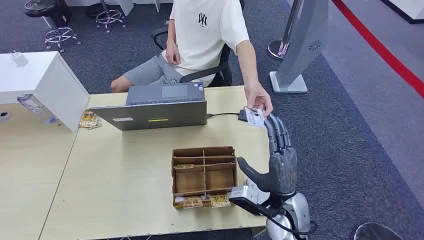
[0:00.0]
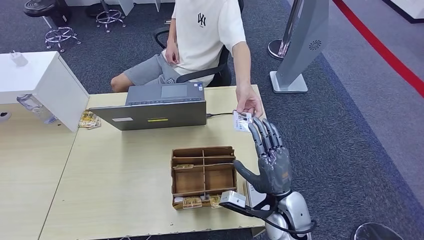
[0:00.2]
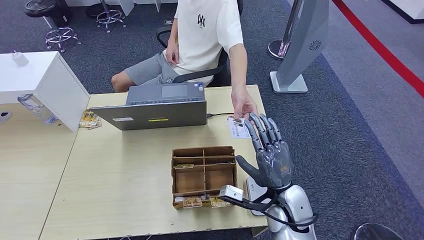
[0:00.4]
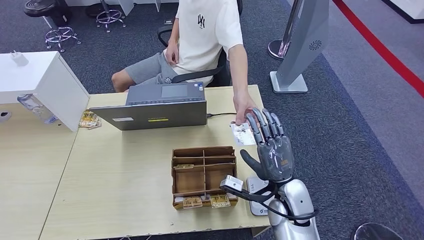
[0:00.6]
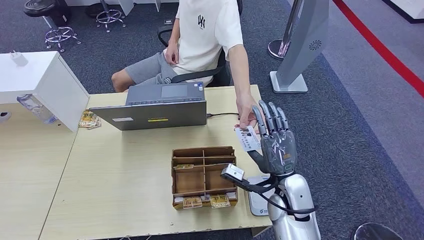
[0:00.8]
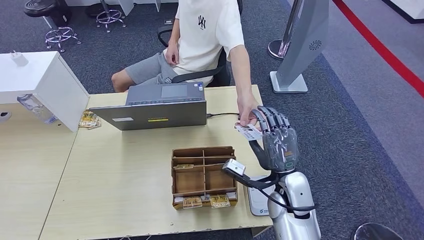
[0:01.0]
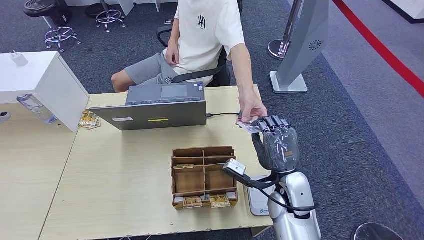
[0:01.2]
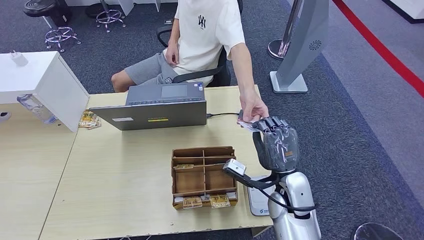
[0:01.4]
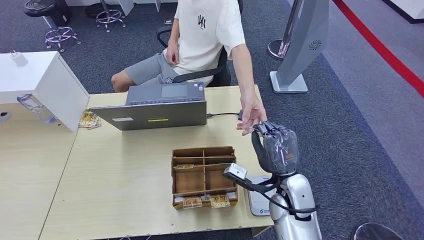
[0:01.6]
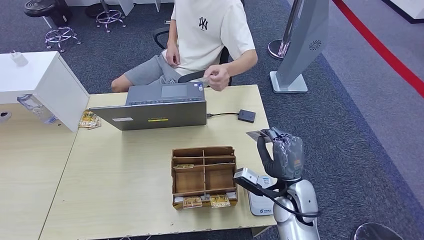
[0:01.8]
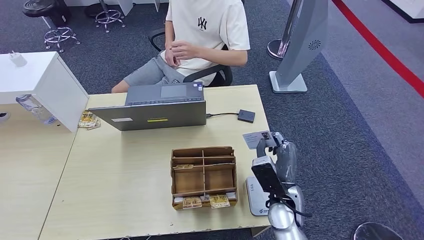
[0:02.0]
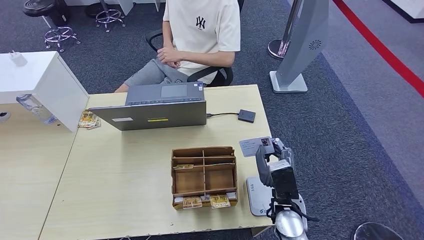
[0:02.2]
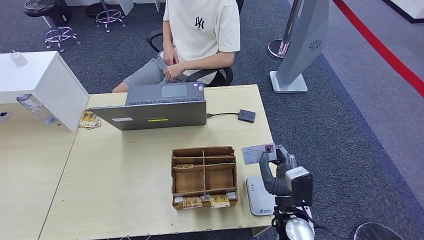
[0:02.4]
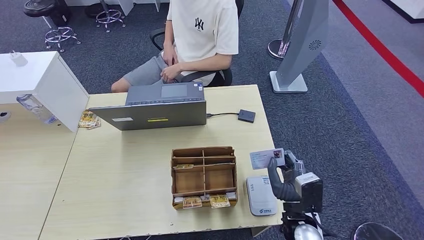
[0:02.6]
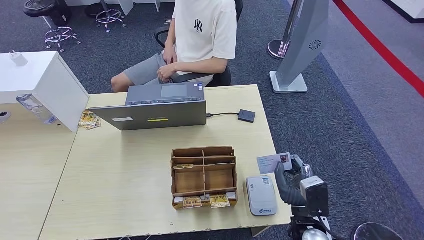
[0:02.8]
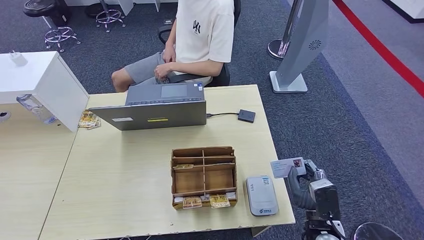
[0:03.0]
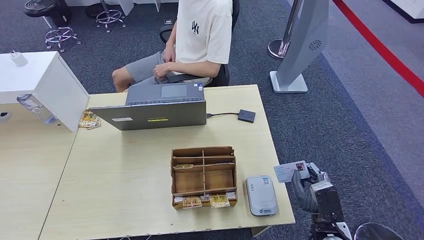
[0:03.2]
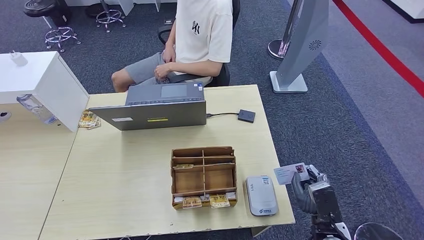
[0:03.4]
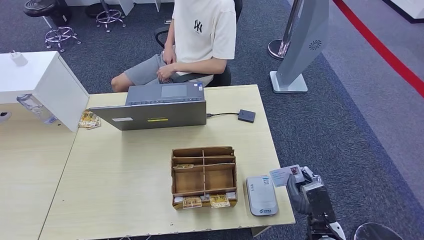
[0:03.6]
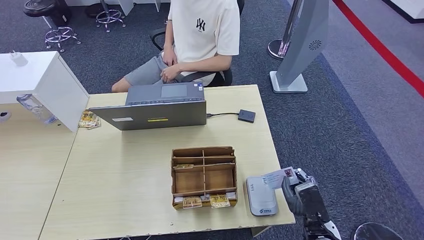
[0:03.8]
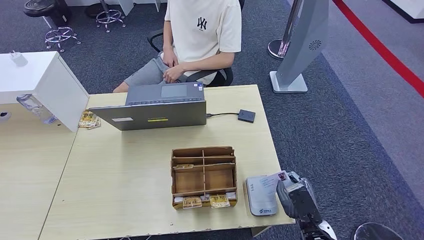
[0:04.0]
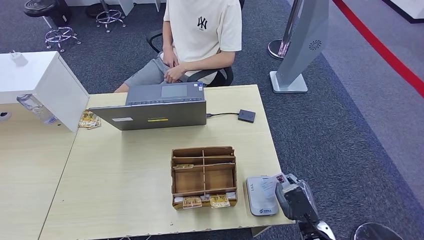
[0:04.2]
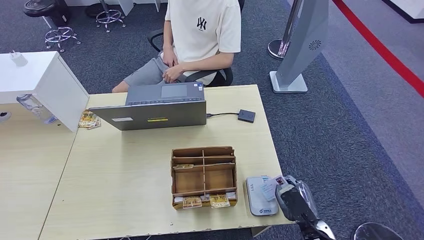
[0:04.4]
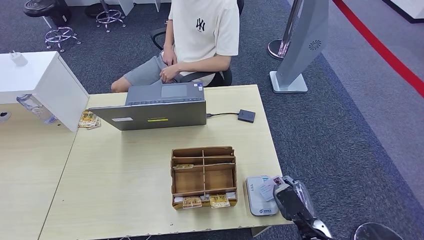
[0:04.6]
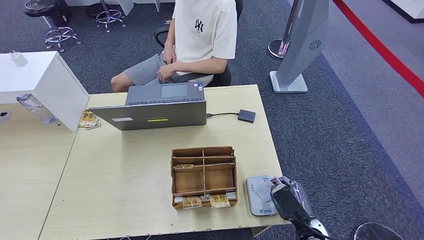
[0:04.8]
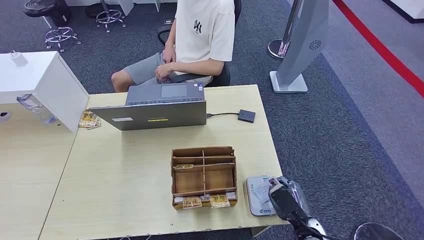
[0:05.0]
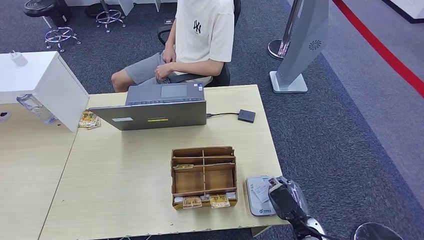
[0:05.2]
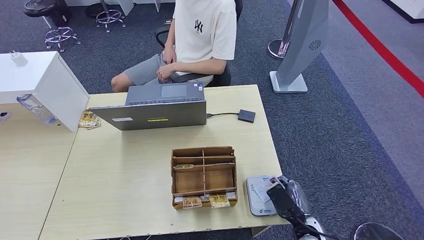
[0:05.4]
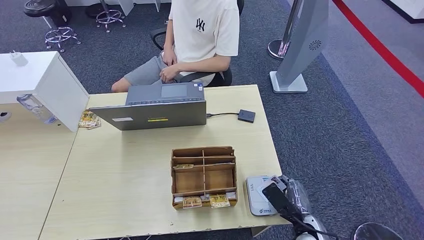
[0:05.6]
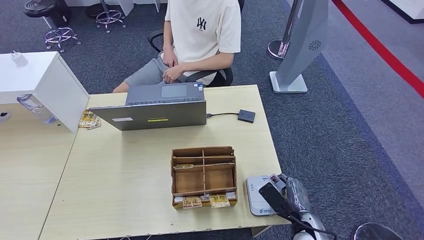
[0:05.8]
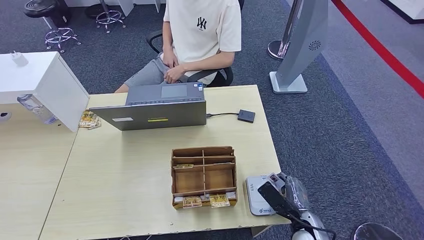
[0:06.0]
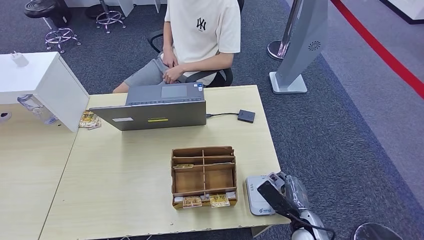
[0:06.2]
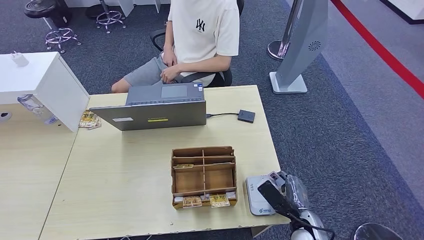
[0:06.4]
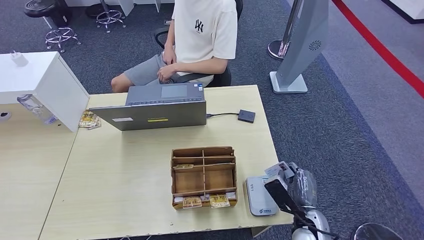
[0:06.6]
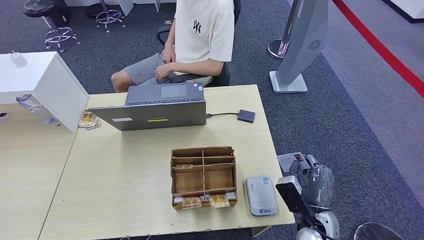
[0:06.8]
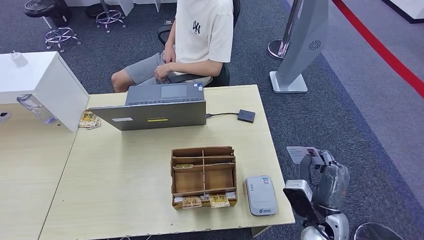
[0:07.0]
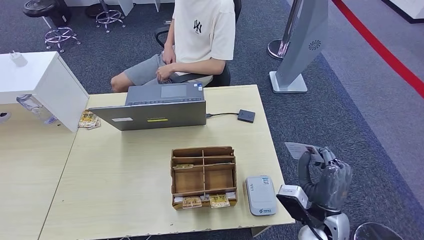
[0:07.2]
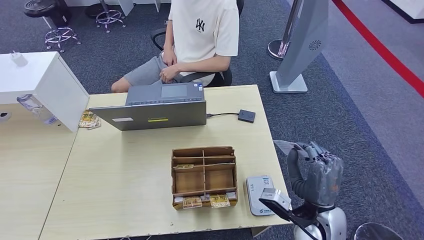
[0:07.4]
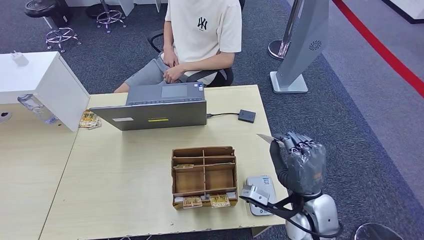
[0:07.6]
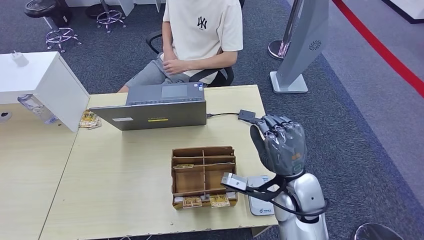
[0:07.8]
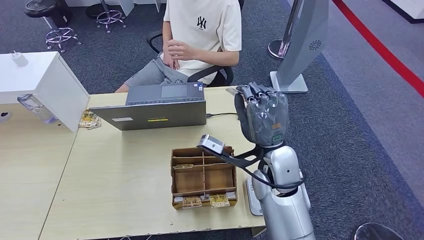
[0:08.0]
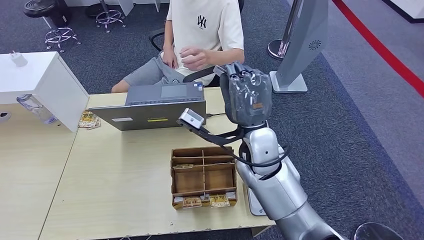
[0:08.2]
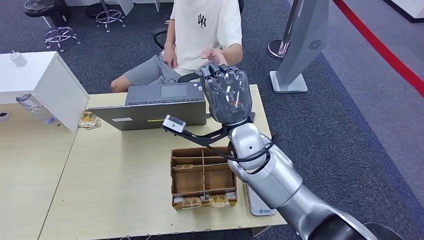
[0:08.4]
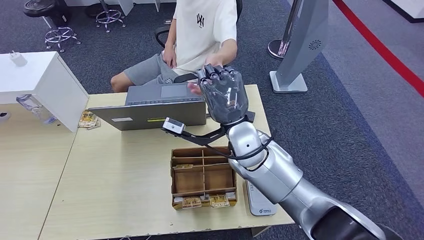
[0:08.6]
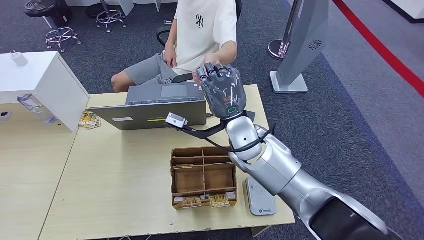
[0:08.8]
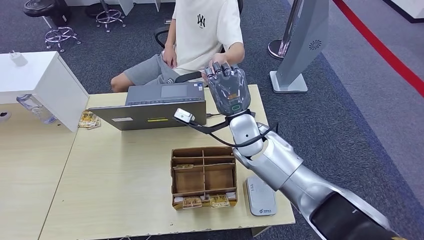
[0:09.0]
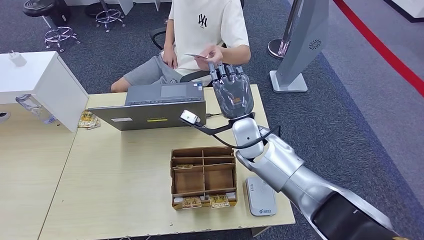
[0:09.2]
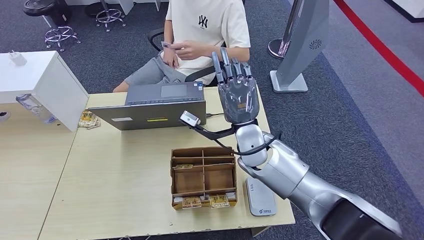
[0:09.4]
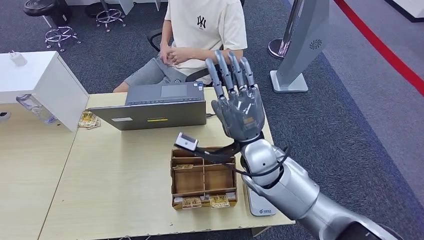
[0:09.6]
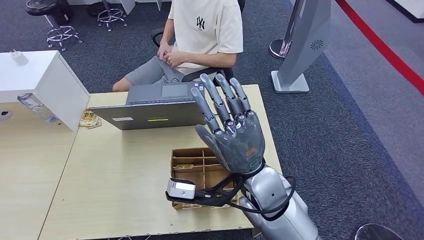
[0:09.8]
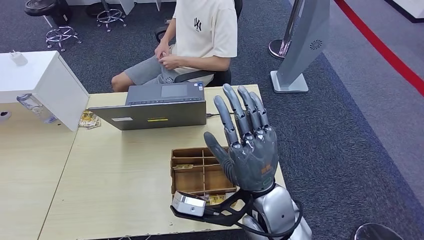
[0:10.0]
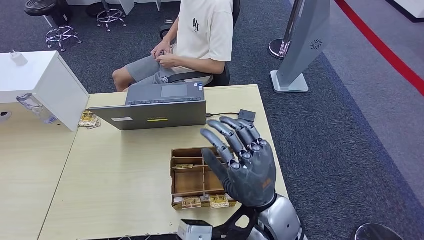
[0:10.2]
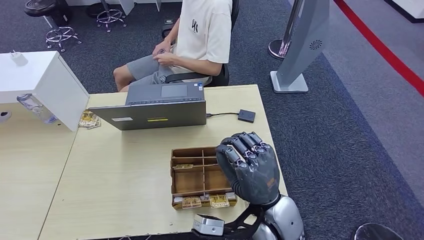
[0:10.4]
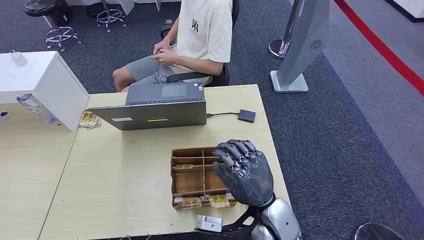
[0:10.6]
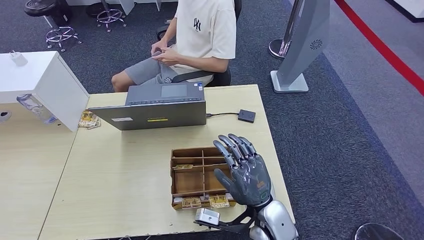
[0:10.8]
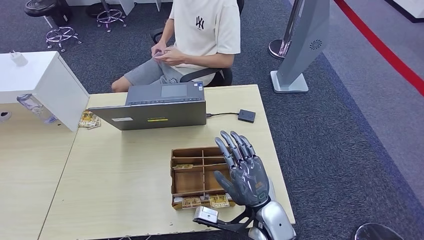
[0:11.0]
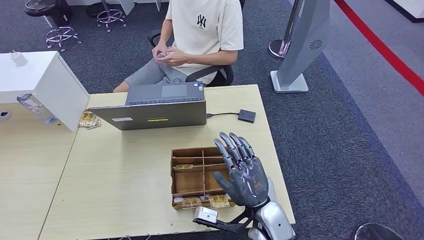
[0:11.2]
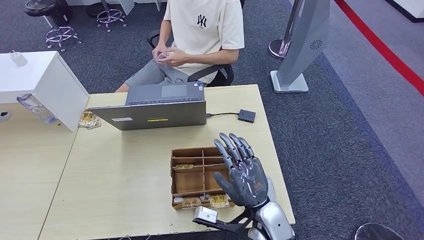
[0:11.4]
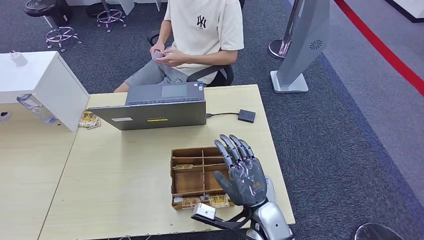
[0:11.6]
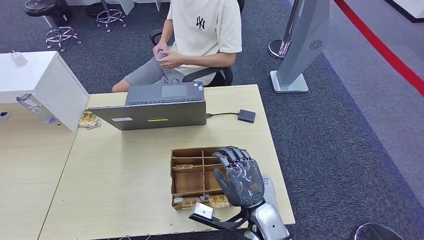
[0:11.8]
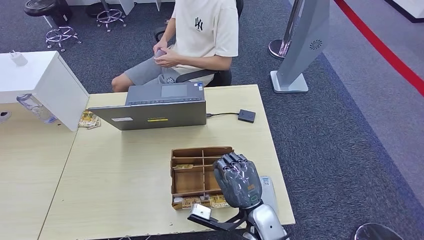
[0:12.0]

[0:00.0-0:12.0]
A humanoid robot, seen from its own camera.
Step, 0:00.0 to 0:02.4: Take the ID card from the person's hand.
Step, 0:02.6 to 0:07.4: Place the ID card on the card reader.
Step, 0:07.8 to 0:09.6: Hand the ID card to the person.
0:01.6 to 0:03.0: The right hand travels backward, to the right and downward by some 15 cm.
0:06.0 to 0:07.6: The right hand moves upward, some 15 cm.
0:07.6 to 0:09.0: The right hand heads forward, to the left and upward, covering some 20 cm.
0:09.0 to 0:10.4: The right hand shifts some 15 cm backward.
0:10.4 to 0:12.0: The right hand travels downward by approximately 10 cm.

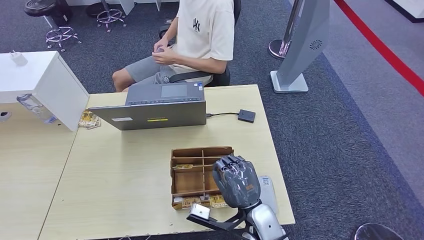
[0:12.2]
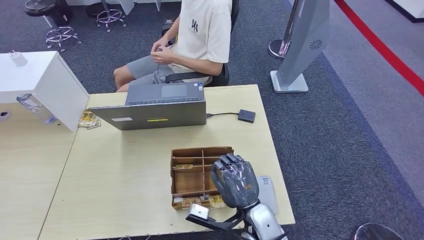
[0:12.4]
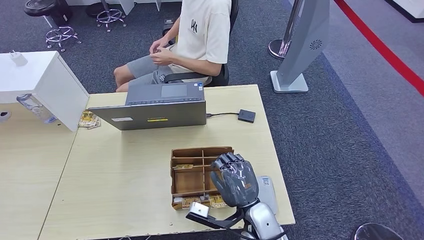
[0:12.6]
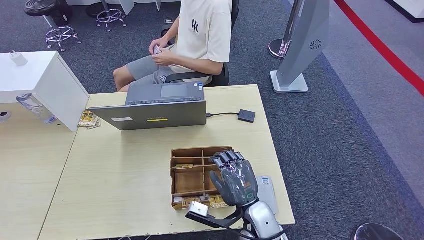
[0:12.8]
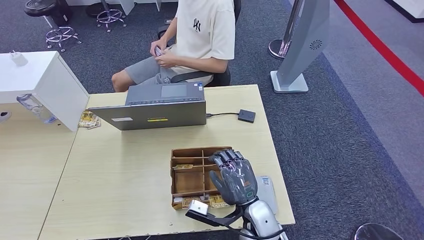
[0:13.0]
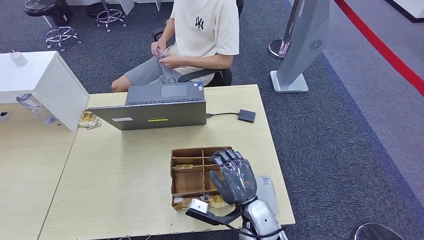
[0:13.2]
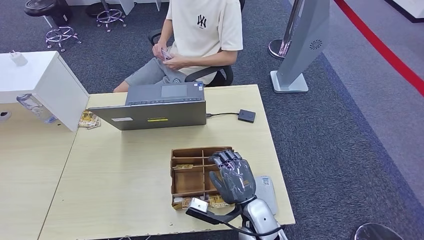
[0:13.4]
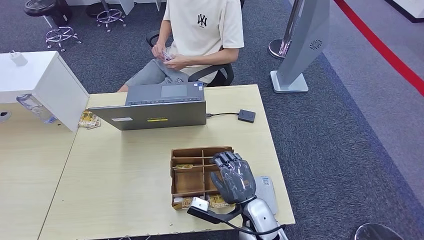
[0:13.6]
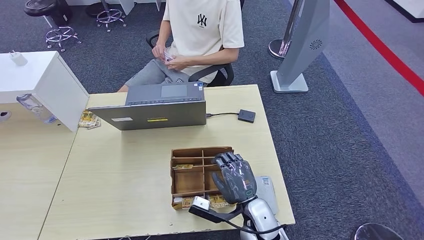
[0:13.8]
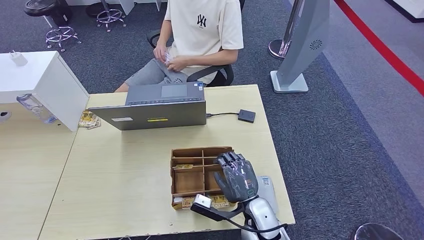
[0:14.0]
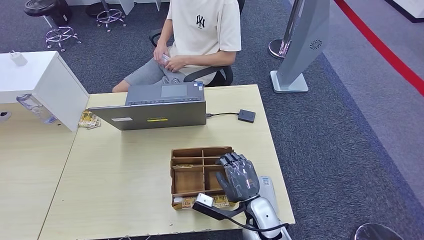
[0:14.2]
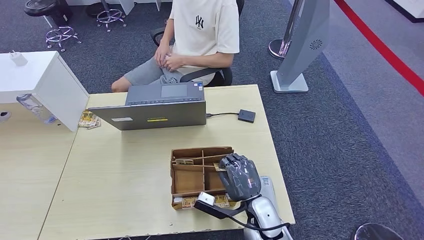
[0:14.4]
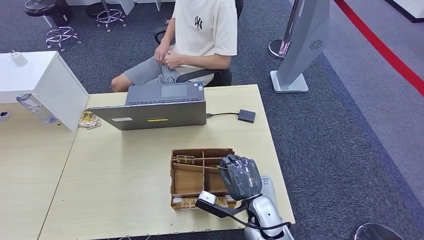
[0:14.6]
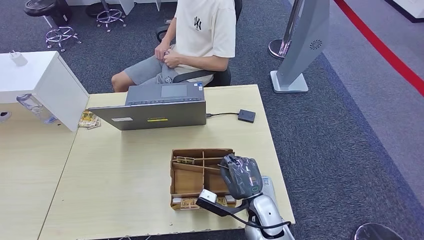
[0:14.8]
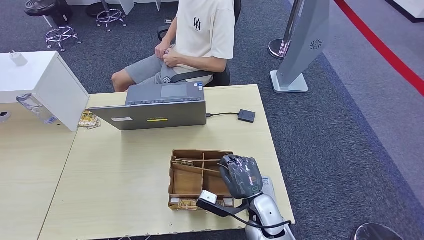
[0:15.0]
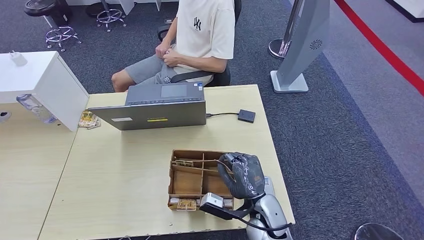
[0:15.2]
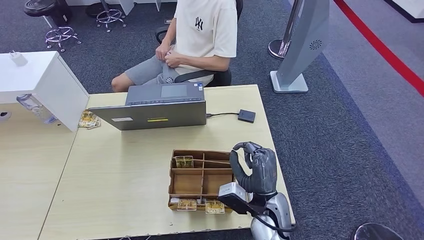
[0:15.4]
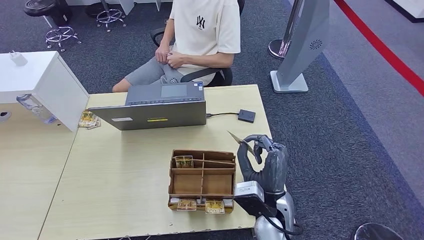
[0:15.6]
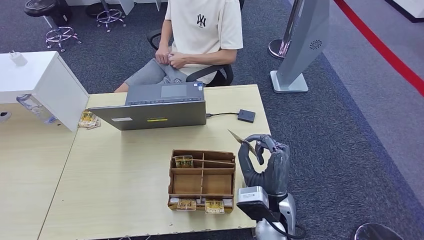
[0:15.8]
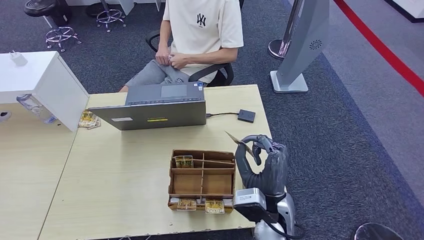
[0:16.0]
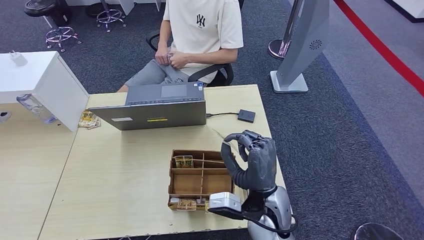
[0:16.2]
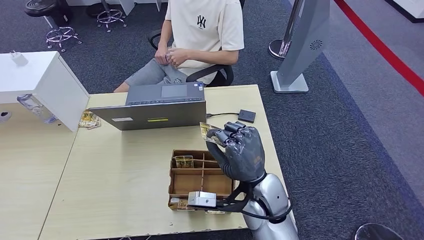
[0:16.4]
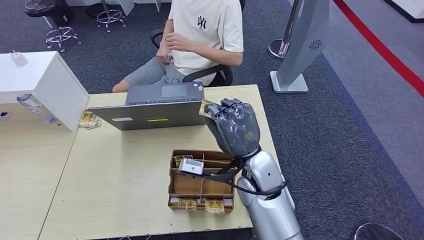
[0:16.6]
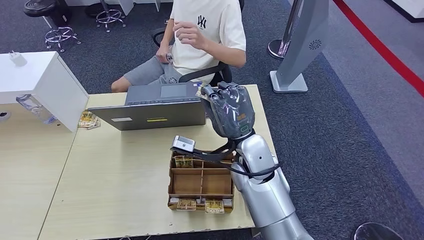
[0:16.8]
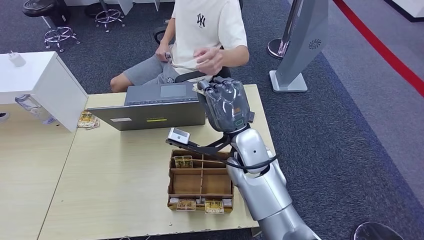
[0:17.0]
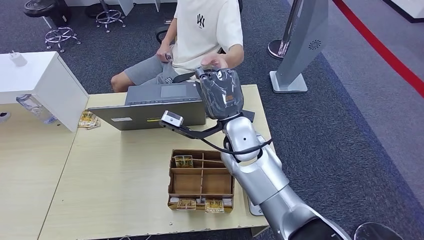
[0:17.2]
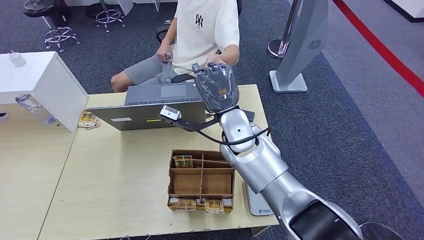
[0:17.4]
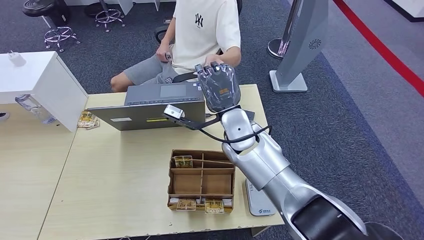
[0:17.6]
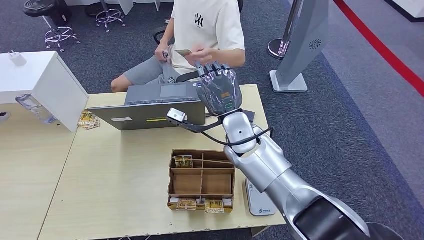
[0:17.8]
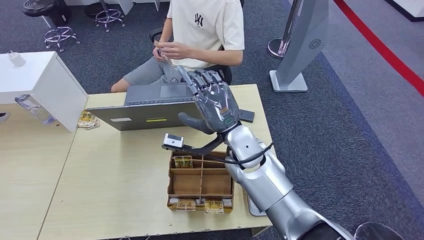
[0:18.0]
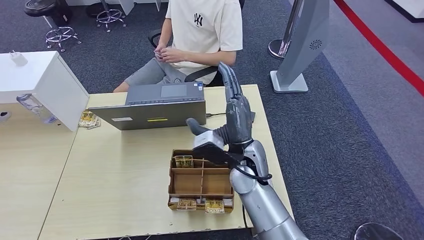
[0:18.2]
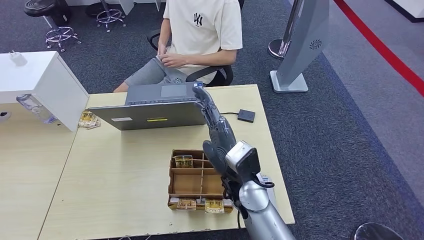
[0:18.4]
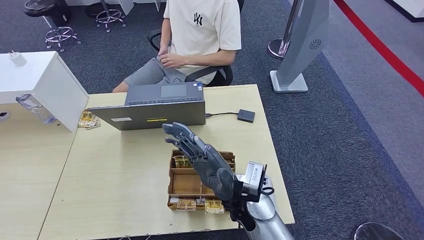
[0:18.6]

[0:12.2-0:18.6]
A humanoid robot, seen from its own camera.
Step, 0:14.4 to 0:16.2: Pick up the room key from the key card box.
Step, 0:16.4 to 0:18.6: Hand the room key to the person.
0:12.2 to 0:13.8: There are only small adjustments of the hands.
0:15.4 to 0:17.0: The right hand travels upward and forward by about 15 cm.
0:17.0 to 0:18.6: The right hand heads backward and downward, covering about 10 cm.
